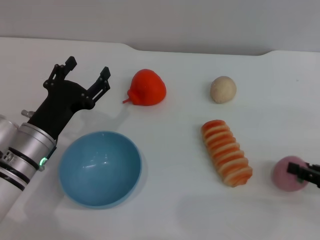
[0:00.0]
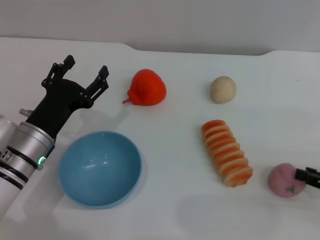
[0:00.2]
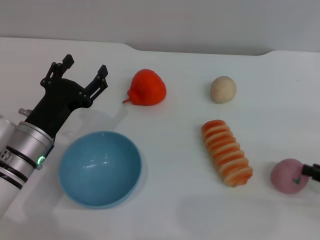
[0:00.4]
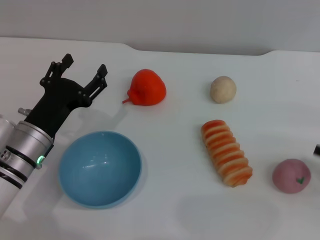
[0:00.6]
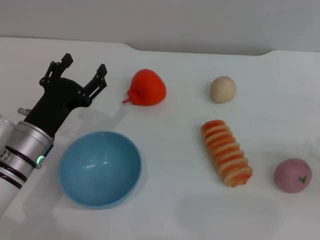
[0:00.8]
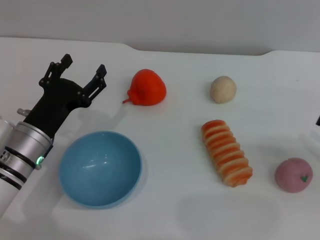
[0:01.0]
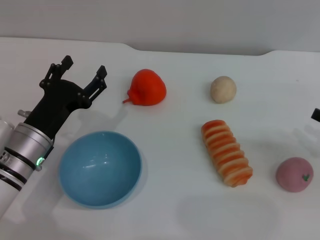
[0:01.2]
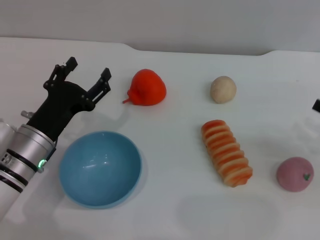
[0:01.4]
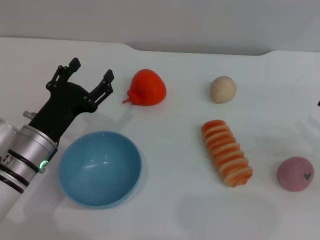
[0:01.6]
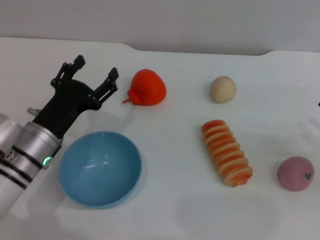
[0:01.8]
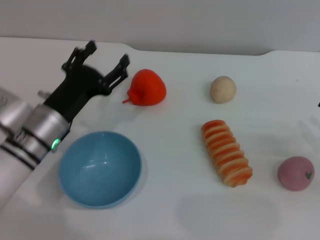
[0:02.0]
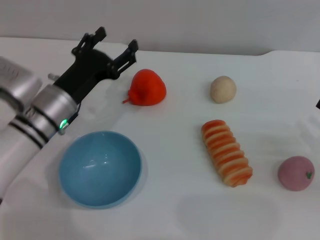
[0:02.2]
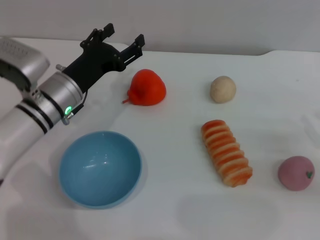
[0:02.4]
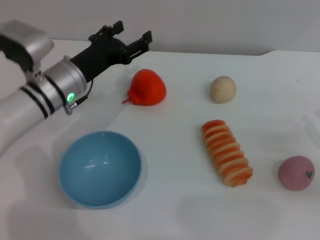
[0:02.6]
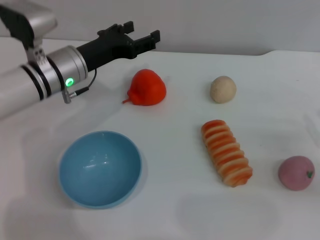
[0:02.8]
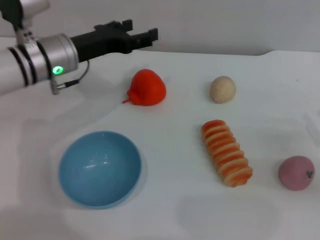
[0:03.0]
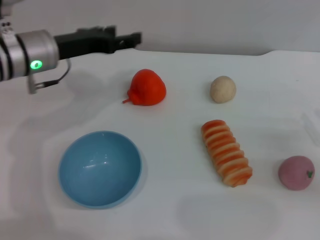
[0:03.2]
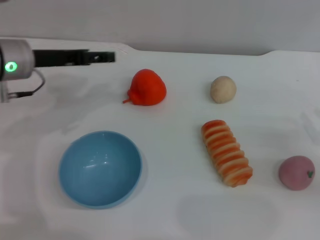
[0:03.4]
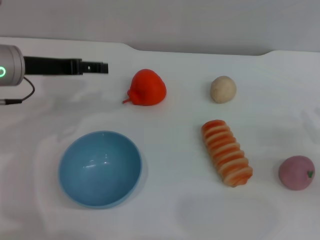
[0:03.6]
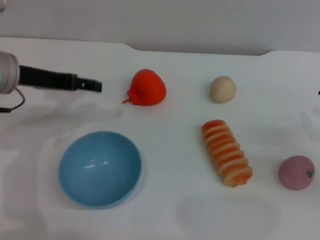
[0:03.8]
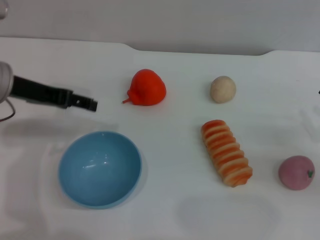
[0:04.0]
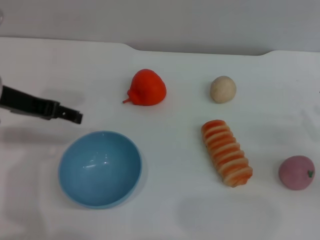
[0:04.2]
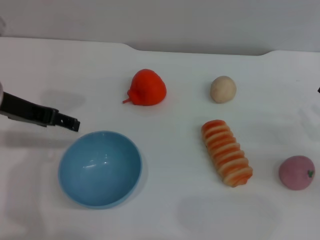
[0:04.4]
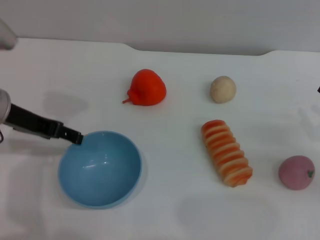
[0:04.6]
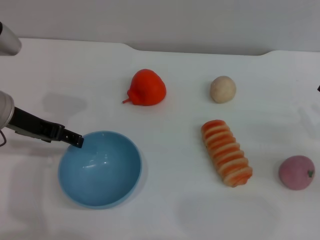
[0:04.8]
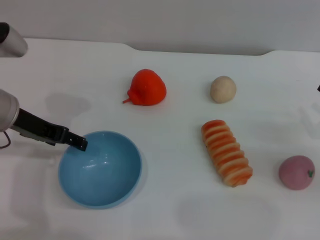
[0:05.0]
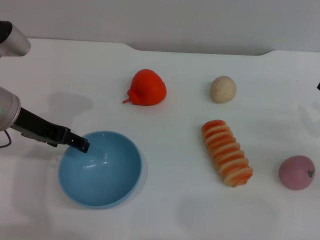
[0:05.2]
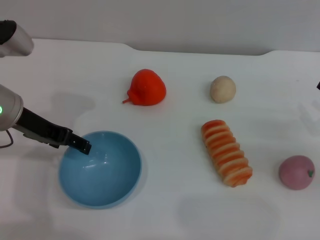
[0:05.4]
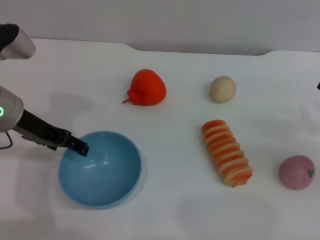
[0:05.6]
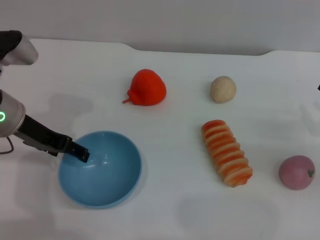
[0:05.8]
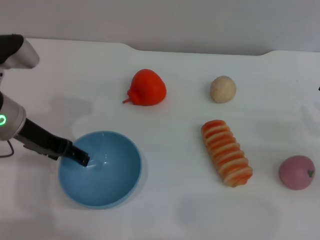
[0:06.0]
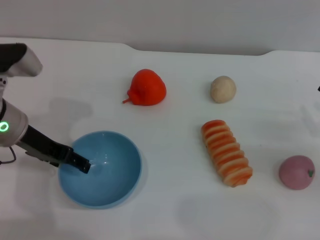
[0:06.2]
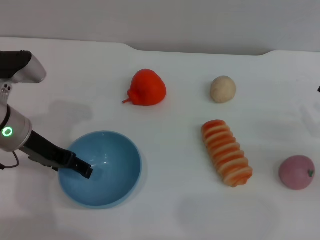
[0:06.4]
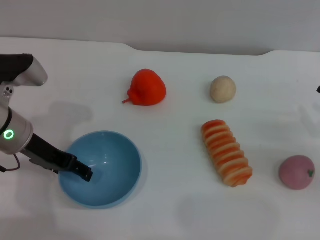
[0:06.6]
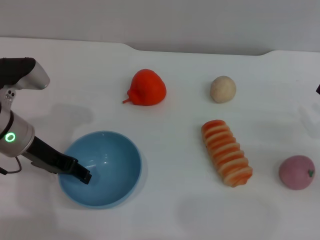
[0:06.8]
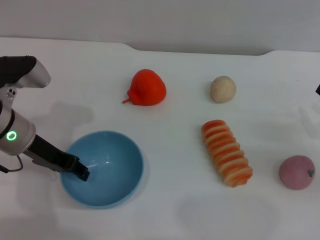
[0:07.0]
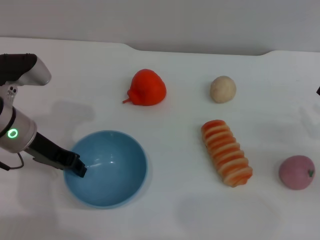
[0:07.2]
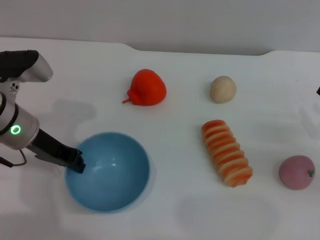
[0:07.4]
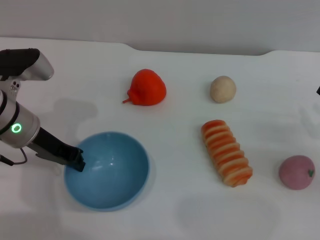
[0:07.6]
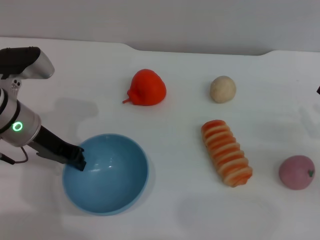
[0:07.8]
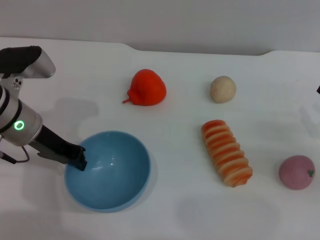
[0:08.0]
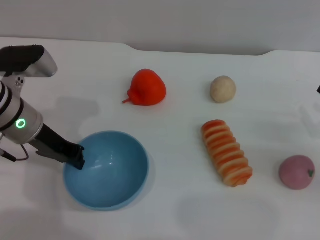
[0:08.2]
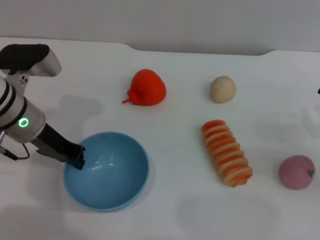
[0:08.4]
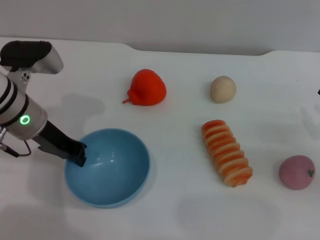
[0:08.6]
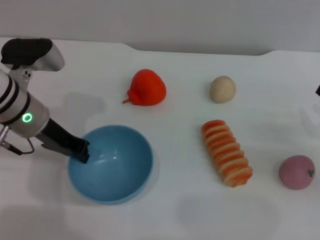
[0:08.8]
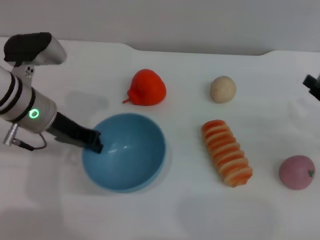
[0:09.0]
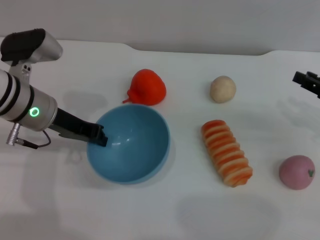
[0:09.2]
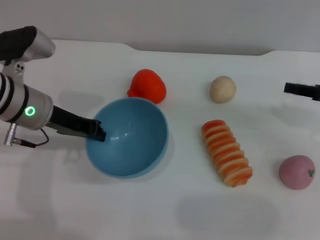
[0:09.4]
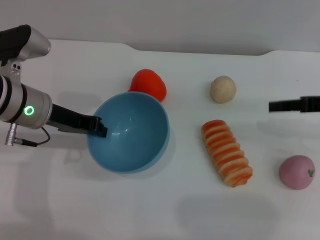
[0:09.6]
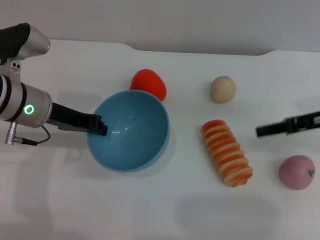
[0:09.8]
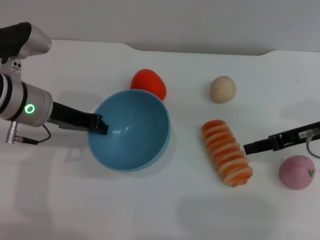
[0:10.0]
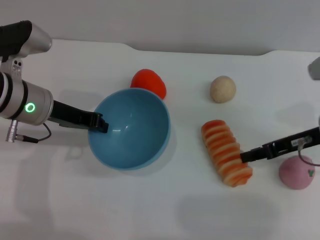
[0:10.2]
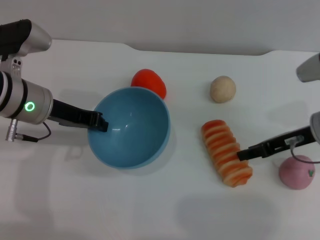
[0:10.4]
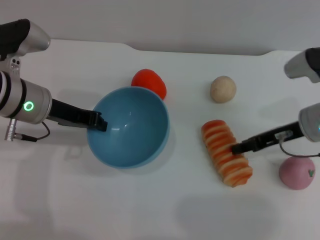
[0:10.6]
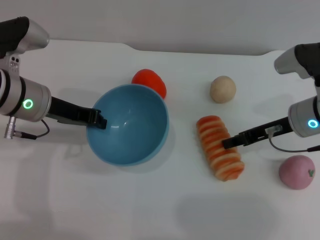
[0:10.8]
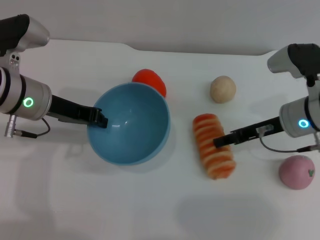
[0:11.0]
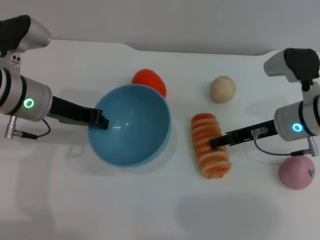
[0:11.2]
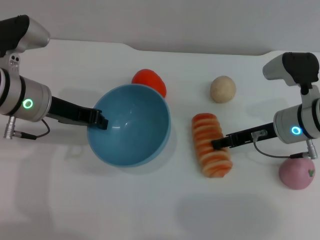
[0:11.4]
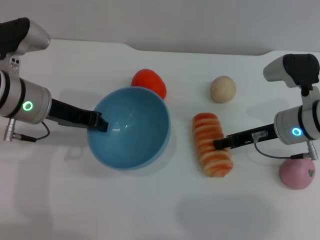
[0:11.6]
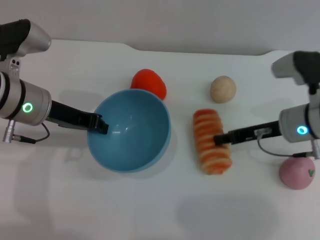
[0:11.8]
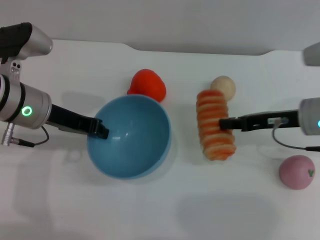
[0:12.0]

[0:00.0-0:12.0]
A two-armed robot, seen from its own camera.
Task of the whole recording: put the bread into the blue bowl and pour it out repeatedly.
Step, 0.0 to 9.4 s: Pick up the bowl with the left gripper.
1.6 to 3.0 s: The left gripper moves forward and upward, some 15 cm.
3.0 to 4.4 s: The left gripper is displaced backward, to the left and upward by roughly 10 cm.
4.4 to 6.0 s: The grippers move only a little.
6.0 to 7.6 s: The left gripper closes up.
7.6 to 9.0 s: There are only small adjustments of the grippers.
9.0 to 10.4 s: The right gripper travels to the left and forward by roughly 10 cm.
10.4 to 12.0 s: There are only small adjustments of the grippers.

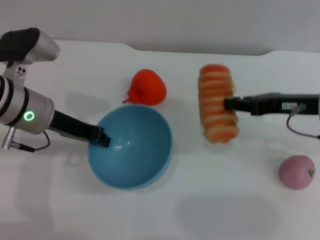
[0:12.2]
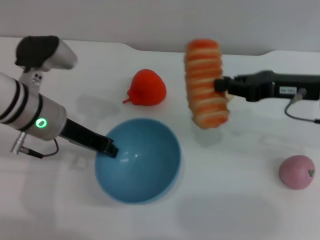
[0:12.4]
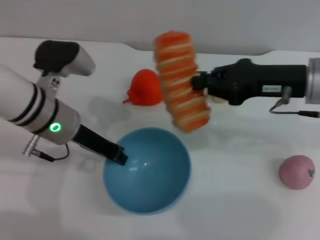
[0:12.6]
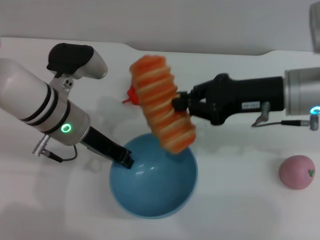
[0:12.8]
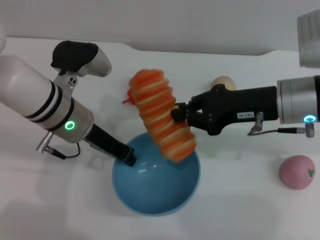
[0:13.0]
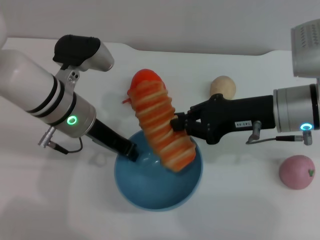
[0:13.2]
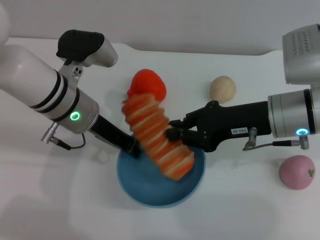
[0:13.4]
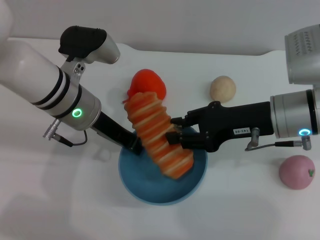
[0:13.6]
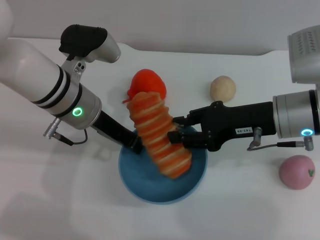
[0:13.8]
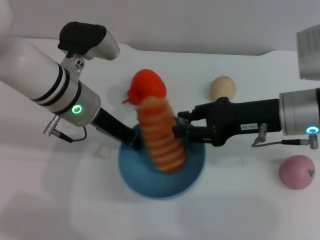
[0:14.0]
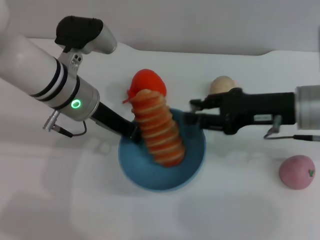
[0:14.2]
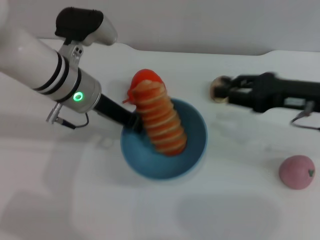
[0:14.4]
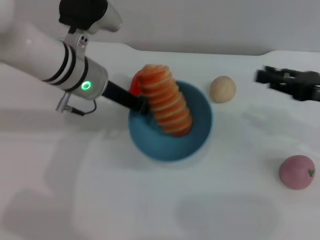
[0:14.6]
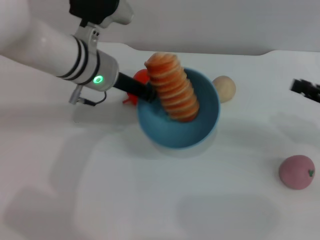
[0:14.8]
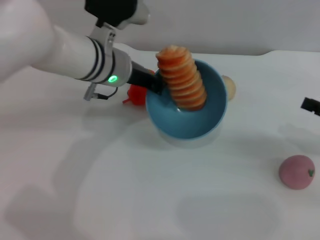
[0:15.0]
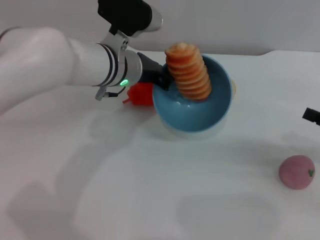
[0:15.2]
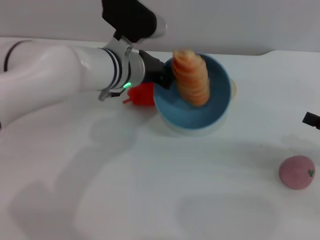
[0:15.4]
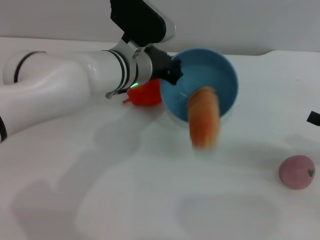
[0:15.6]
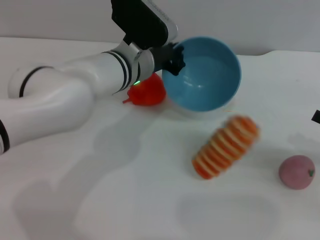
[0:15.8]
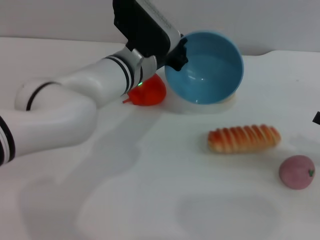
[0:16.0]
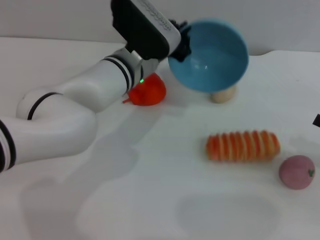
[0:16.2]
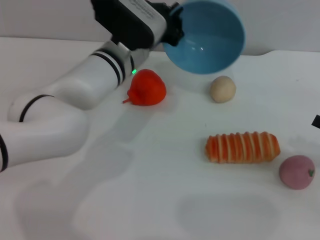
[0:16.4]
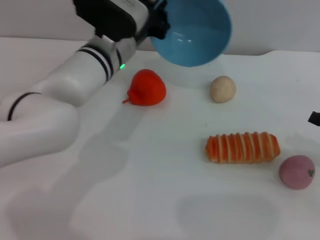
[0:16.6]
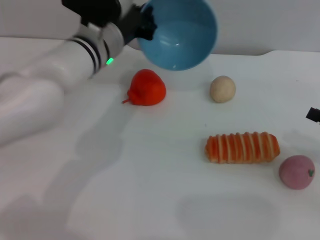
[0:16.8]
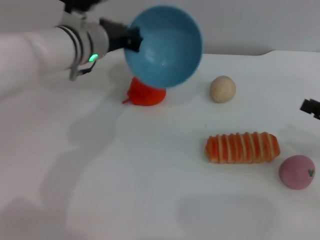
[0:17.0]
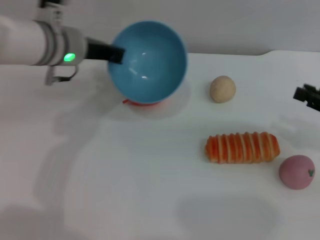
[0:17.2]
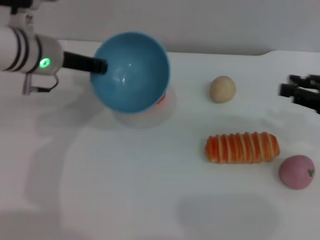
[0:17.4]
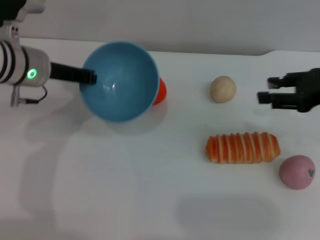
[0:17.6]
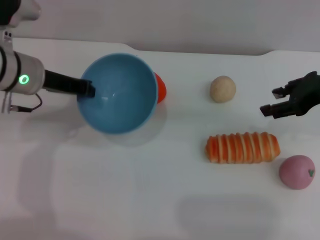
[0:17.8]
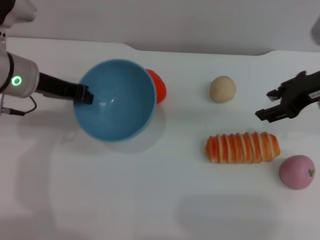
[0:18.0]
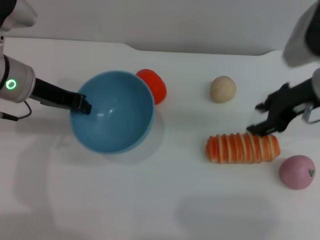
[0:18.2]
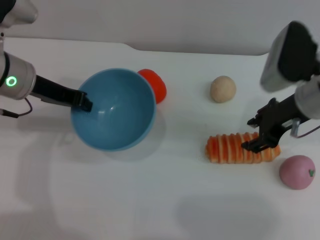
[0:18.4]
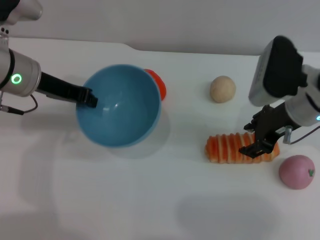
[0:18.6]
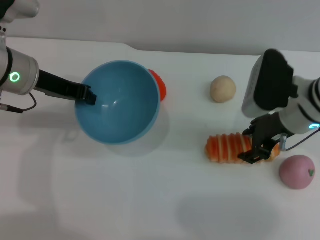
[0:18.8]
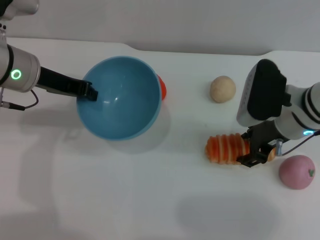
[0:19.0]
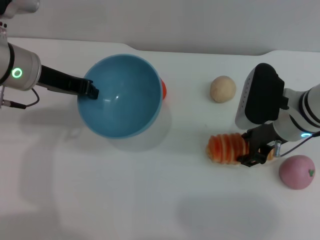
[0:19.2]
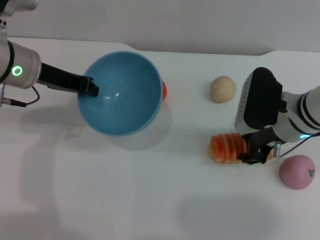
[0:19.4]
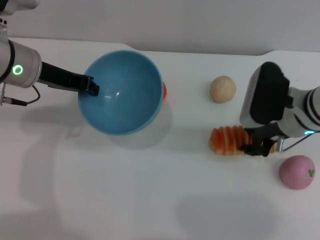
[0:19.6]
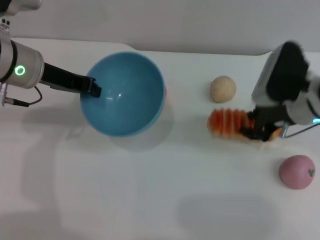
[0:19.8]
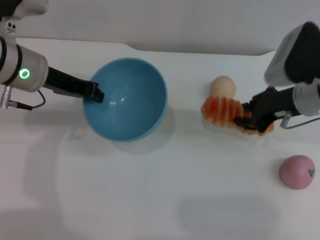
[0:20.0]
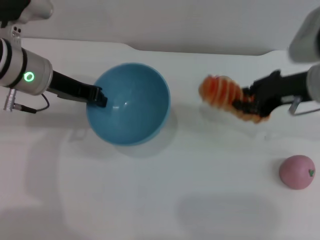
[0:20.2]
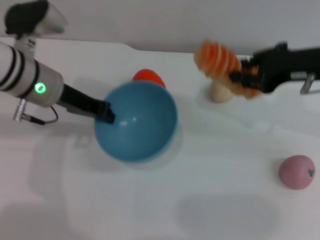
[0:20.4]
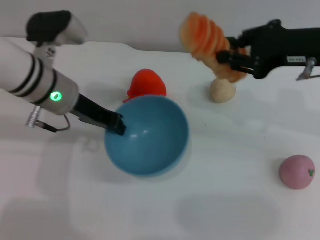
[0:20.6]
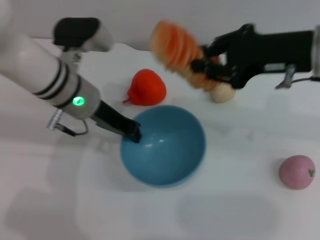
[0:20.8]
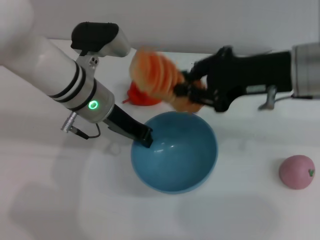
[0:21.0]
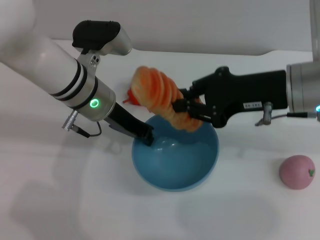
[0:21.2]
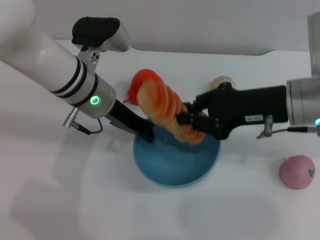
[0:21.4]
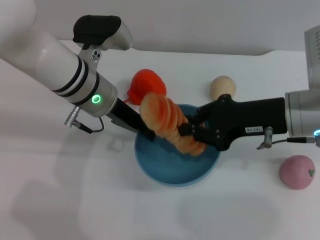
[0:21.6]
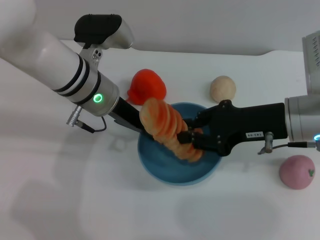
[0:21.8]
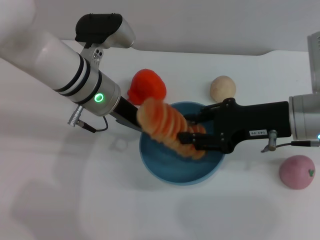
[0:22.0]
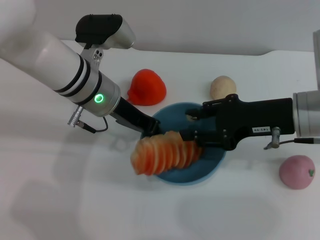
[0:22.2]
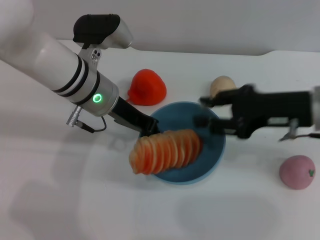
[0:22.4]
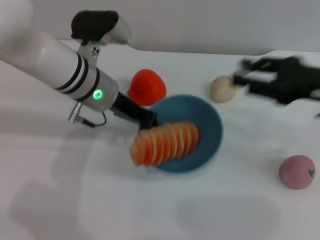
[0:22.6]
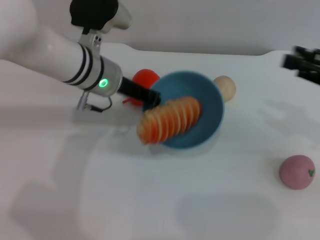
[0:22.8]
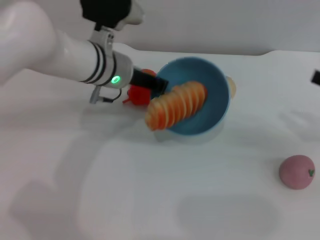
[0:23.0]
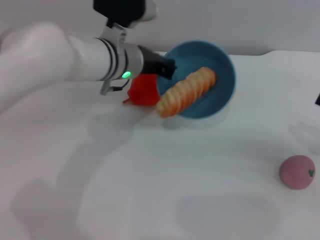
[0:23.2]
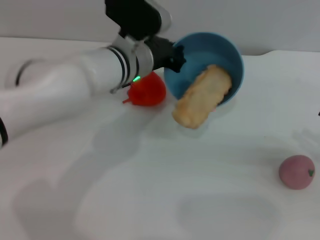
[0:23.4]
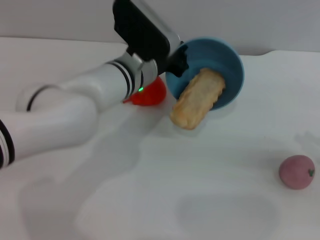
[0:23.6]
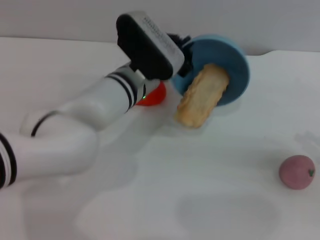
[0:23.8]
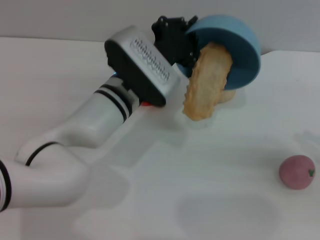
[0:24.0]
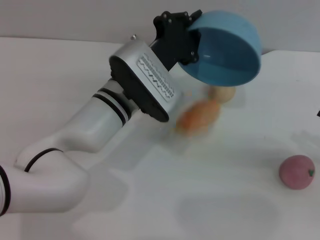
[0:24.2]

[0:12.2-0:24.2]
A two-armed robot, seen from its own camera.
Task of the whole recording: put the bread into the blue bowl and pour it out repeatedly.
Step, 12.2 to 14.2 s: Place the bread into the bowl.
Step, 14.4 to 16.0 s: Pour the bread out of the bowl.
Step, 16.4 to 20.0 s: Pick up the bread with the right gripper.
Step, 20.4 to 22.2 s: Place the bread into the bowl.
12.2 to 13.8 s: The left gripper moves to the right, some 5 cm; the right gripper shifts approximately 5 cm to the left, and opens.
13.8 to 15.2 s: The left gripper travels to the right by roughly 5 cm; the right gripper goes about 20 cm to the right.
16.6 to 18.2 s: The right gripper is displaced to the left, forward and upward by some 20 cm, and opens up. The left gripper heads to the left, covering some 15 cm.
18.2 to 19.8 s: The right gripper goes about 5 cm downward.
19.8 to 21.2 s: The left gripper is displaced to the right by some 10 cm. The right gripper moves upward, approximately 5 cm, and closes.
21.2 to 22.6 s: The right gripper is displaced to the right by about 10 cm, and opens.
22.6 to 24.2 s: The right gripper travels to the right, downward and backward by approximately 15 cm; the left gripper shifts some 5 cm to the right.
